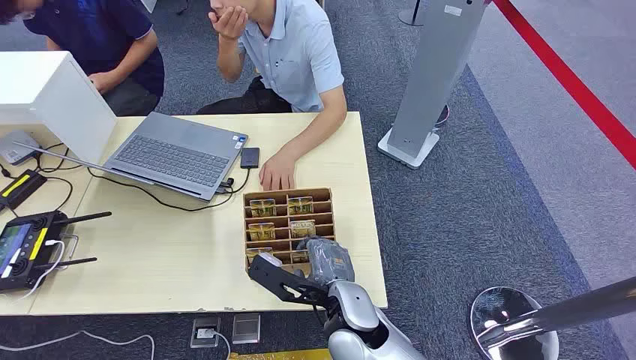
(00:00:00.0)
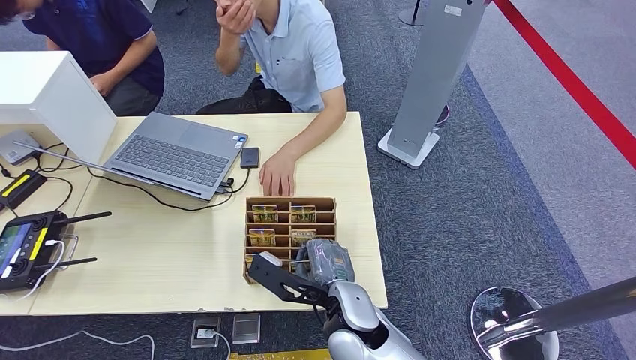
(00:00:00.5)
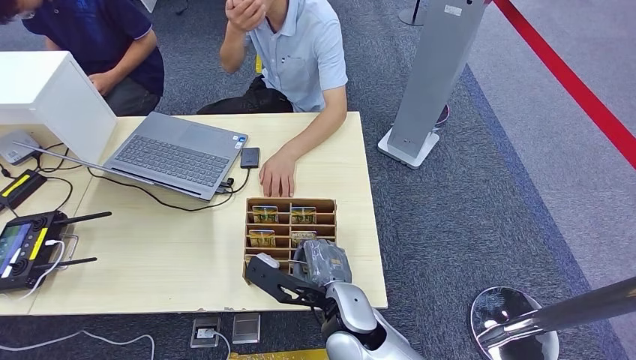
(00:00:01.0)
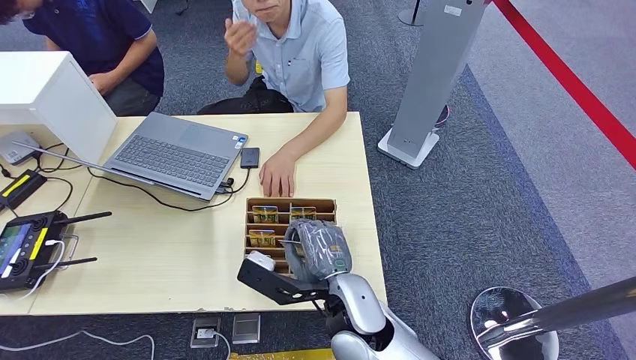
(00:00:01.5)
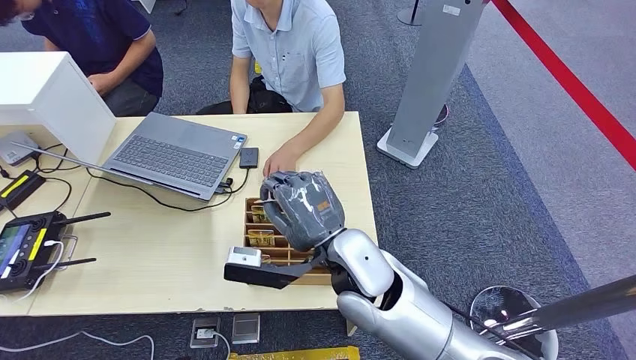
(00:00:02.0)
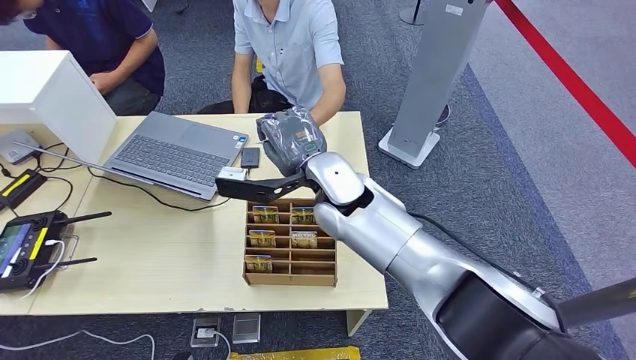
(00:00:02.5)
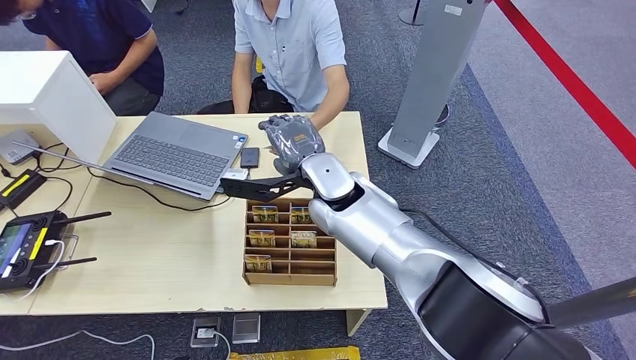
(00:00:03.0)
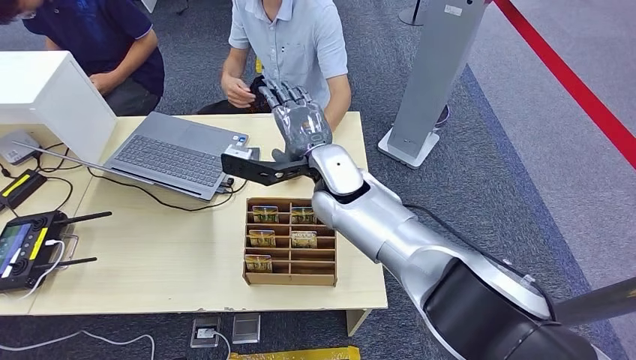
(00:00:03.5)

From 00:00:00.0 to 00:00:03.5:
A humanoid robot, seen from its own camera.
Step, from 00:00:00.0 to 00:00:01.5: Pick up the room card from the card holder.
Step, from 00:00:02.0 to 00:00:03.5: Hand the room card to the target.
From 00:00:02.0 to 00:00:03.5: The right hand goes about 15 cm forward.
